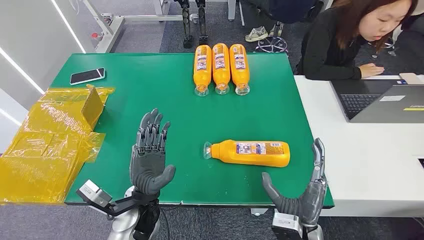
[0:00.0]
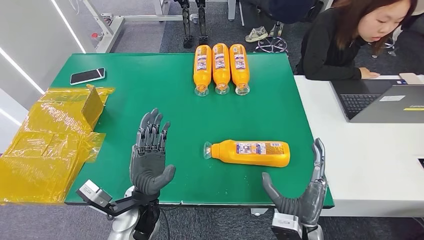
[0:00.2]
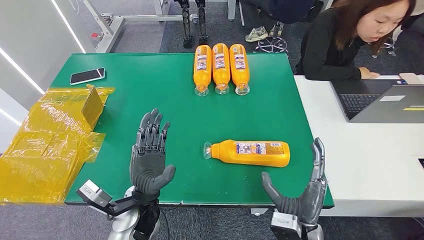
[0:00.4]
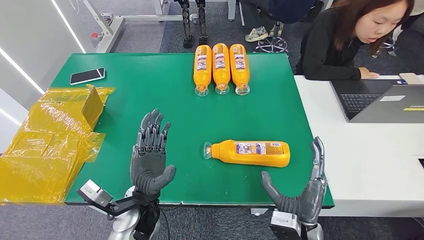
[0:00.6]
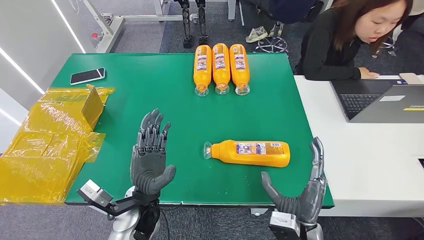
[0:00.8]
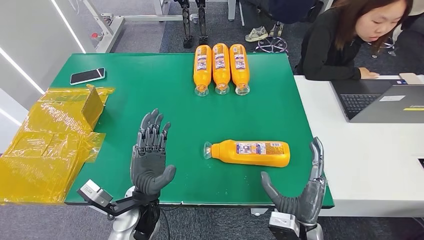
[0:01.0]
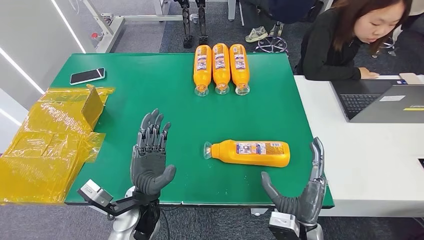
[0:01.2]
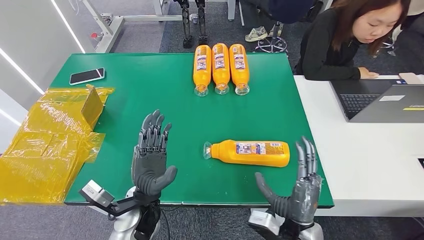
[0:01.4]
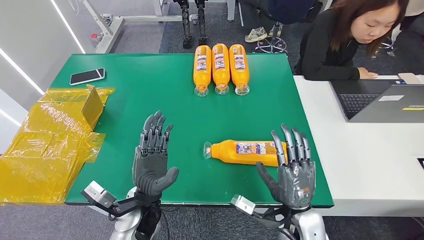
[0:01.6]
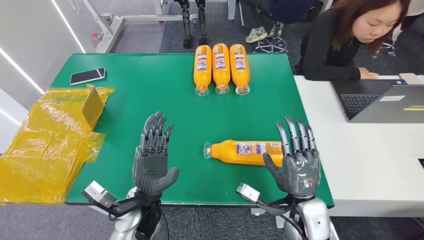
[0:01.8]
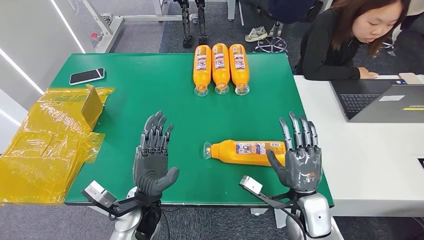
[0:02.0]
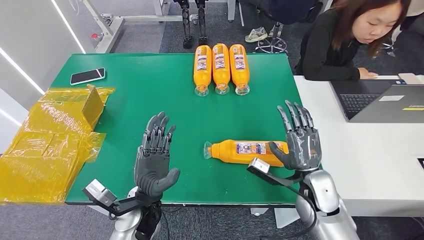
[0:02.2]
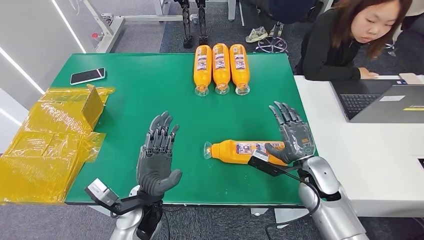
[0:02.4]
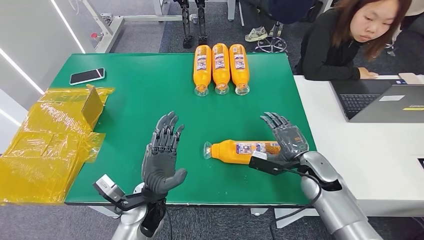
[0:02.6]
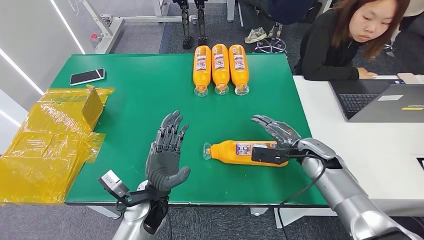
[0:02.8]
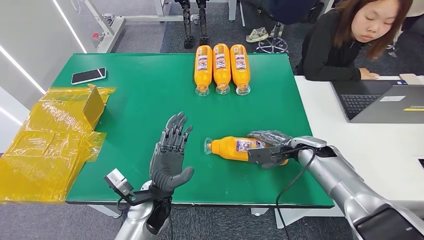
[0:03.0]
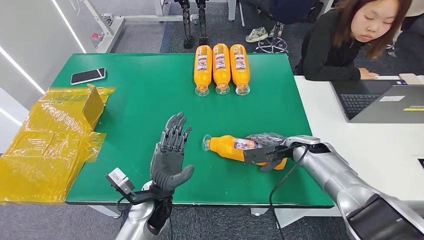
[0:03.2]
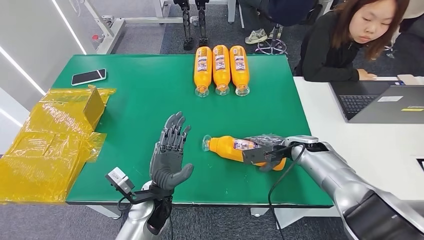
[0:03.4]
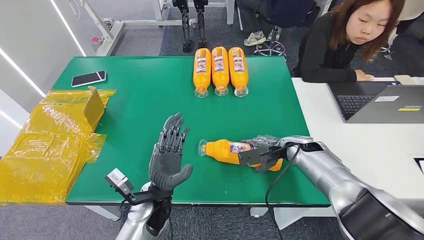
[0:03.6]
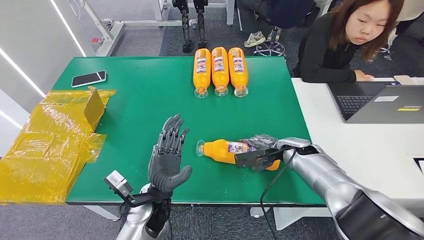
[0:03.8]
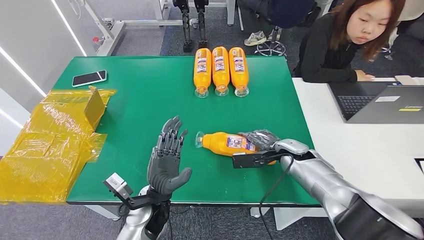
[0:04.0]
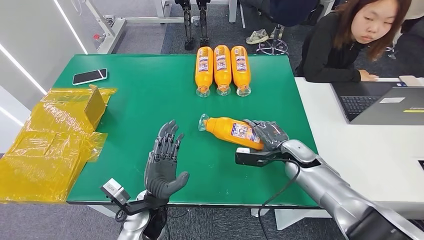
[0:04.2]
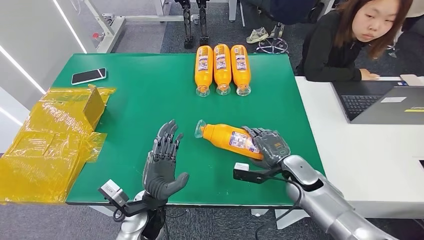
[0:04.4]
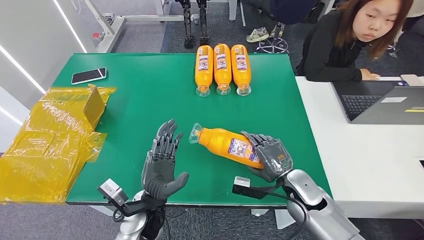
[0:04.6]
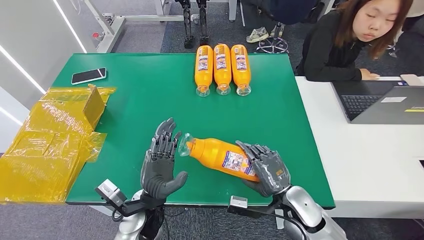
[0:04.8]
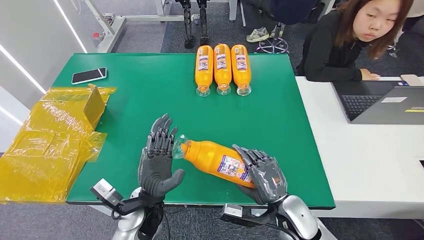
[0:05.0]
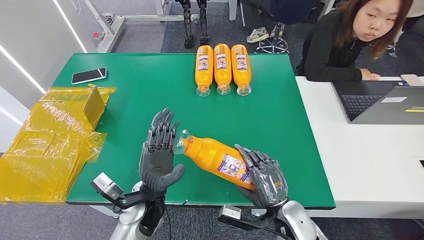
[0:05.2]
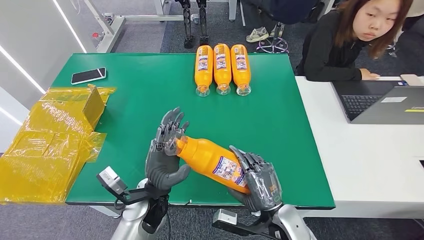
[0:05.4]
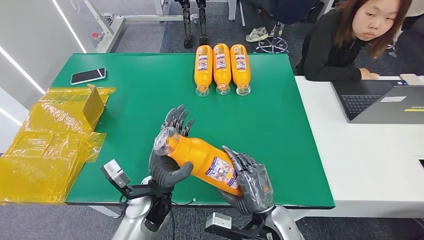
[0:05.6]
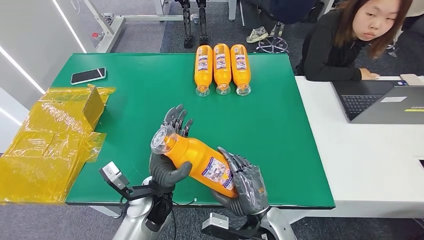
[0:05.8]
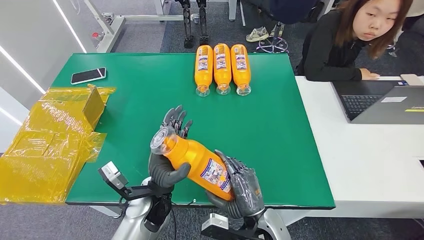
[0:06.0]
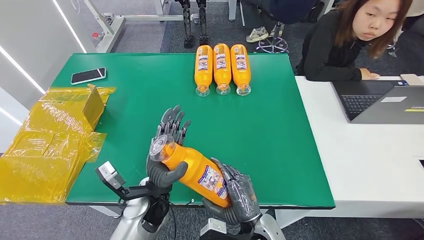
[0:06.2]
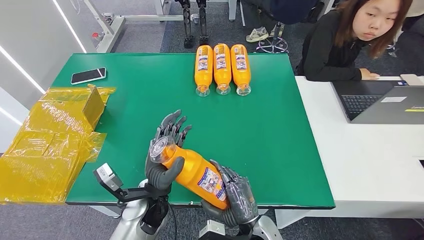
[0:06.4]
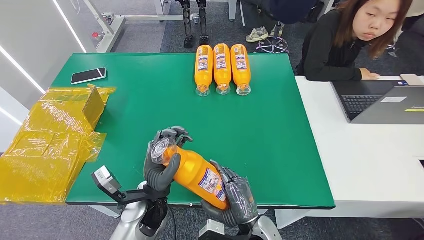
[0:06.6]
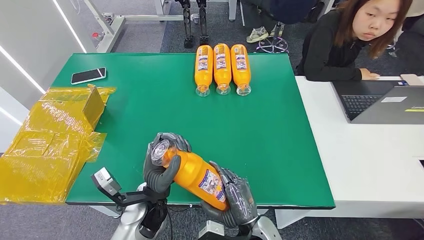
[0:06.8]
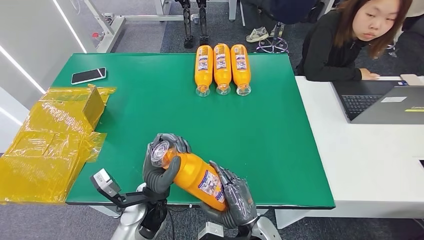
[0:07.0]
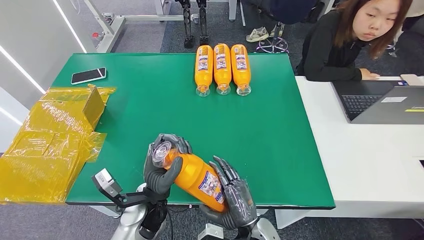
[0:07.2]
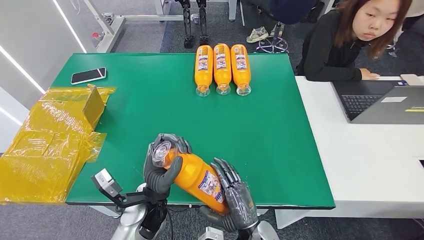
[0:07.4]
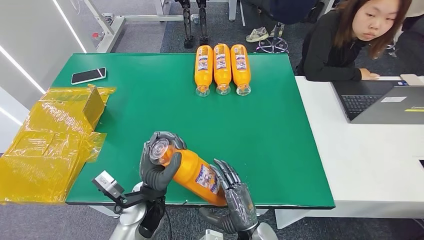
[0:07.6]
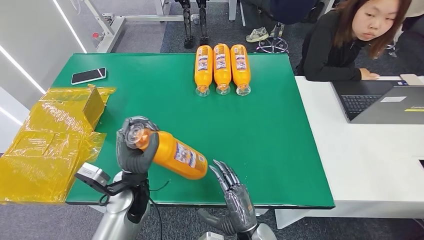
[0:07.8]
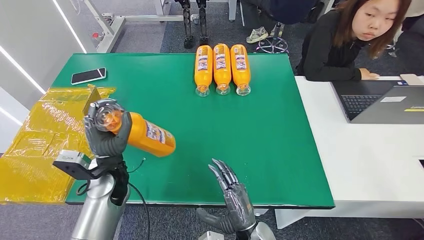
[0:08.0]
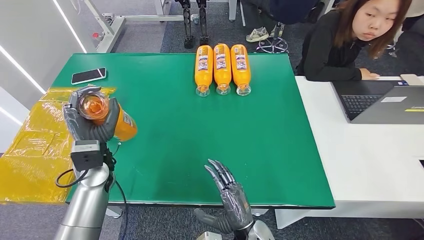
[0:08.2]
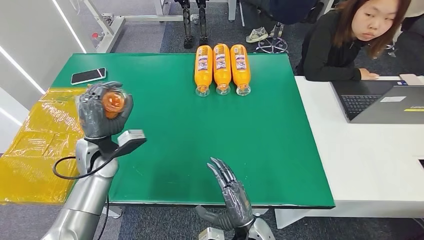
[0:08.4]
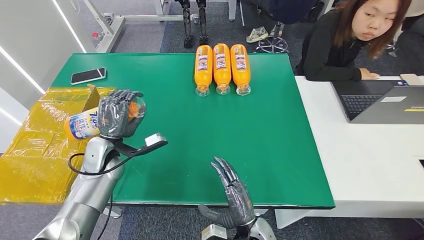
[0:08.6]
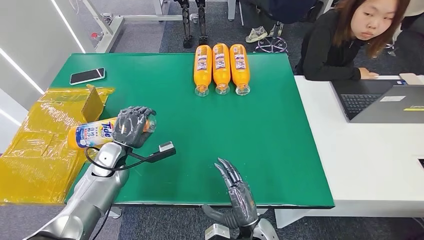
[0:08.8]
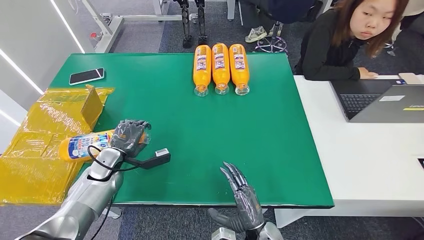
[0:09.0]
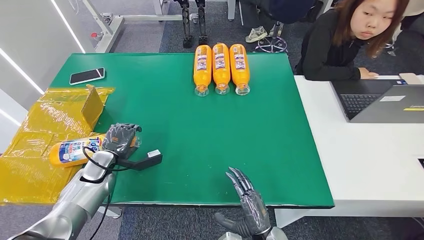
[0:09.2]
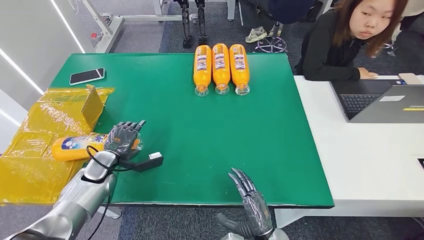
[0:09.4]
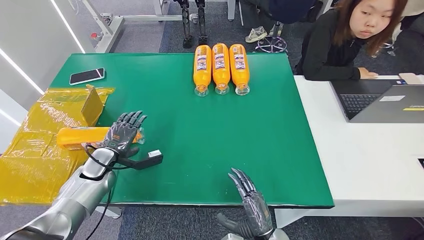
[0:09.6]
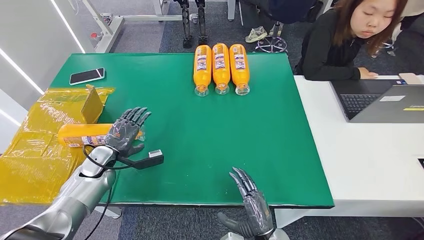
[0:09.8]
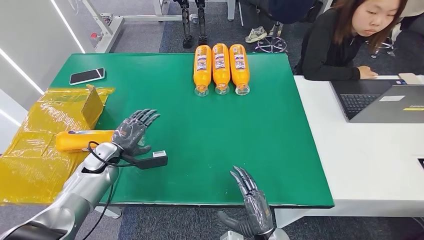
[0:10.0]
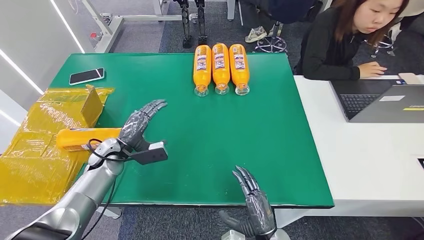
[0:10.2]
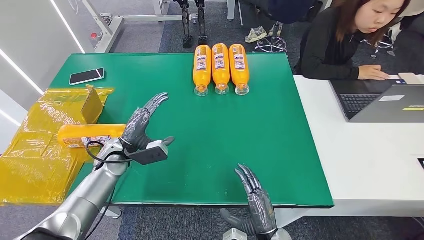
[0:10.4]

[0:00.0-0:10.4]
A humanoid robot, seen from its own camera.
Step, 0:00.0 to 0:05.0: Pick up the bottle from the table.
Step, 0:05.2 to 0:10.4: Turn the bottle to the front side.
0:01.4 to 0:03.0: The right hand goes roughly 25 cm forward and to the right.
0:03.0 to 0:04.4: The right hand travels backward by approximately 5 cm.
0:04.4 to 0:06.0: The right hand goes about 20 cm backward and to the left.
0:06.0 to 0:07.4: There are only small adjustments of the hands.
0:07.4 to 0:09.0: The left hand heads to the left and forward, covering approximately 25 cm.
0:09.0 to 0:10.4: The left hand ends up approximately 5 cm from where it was.
